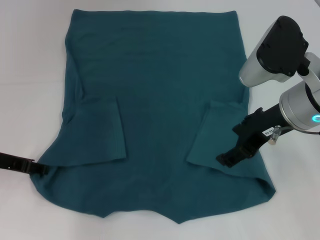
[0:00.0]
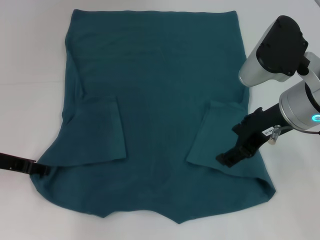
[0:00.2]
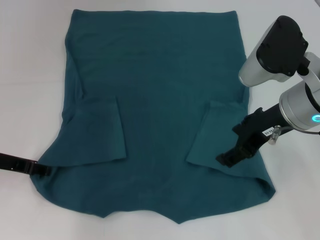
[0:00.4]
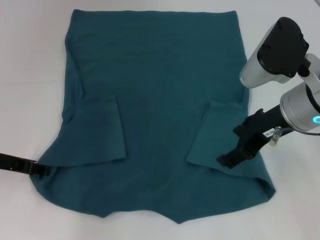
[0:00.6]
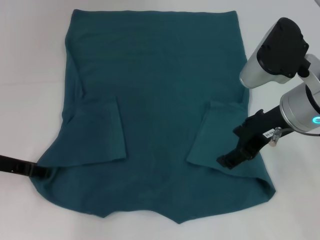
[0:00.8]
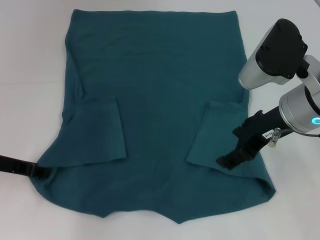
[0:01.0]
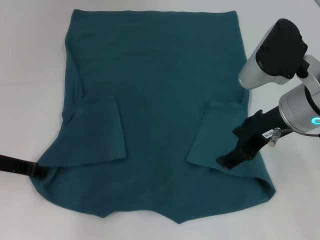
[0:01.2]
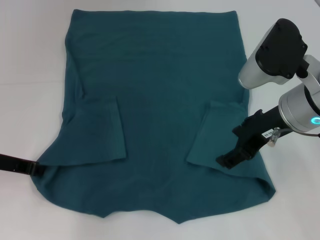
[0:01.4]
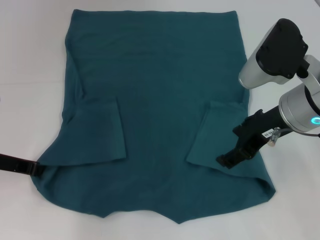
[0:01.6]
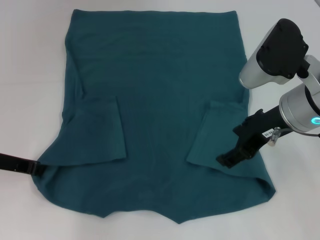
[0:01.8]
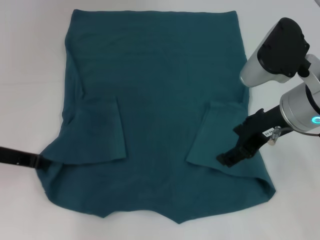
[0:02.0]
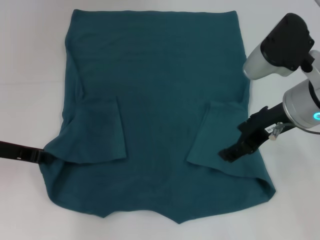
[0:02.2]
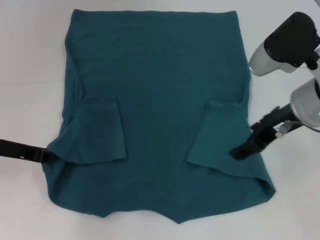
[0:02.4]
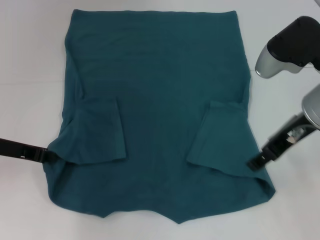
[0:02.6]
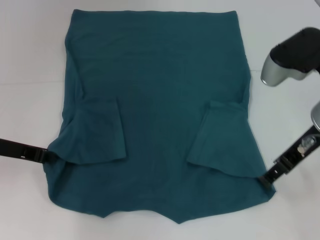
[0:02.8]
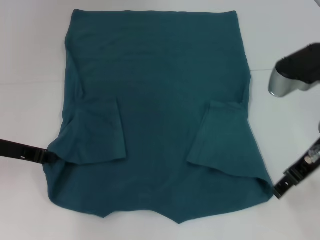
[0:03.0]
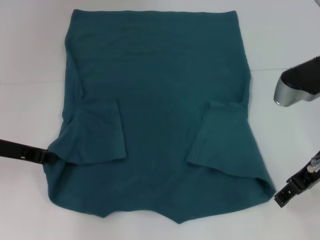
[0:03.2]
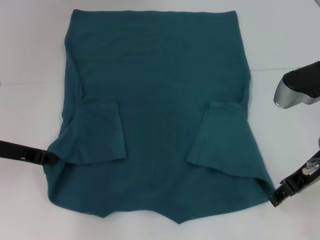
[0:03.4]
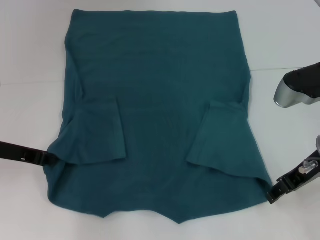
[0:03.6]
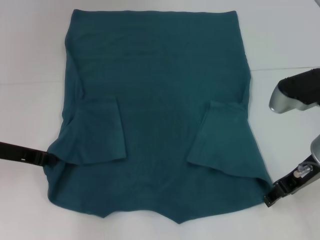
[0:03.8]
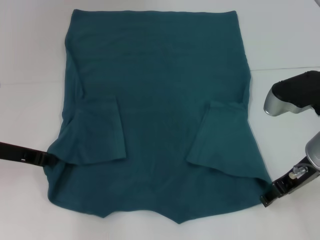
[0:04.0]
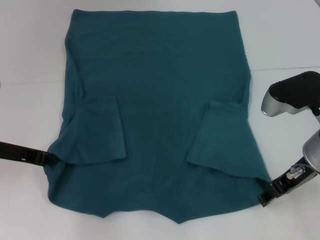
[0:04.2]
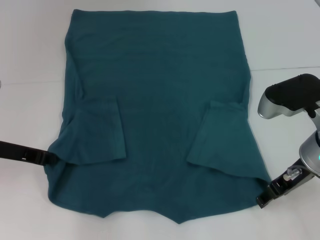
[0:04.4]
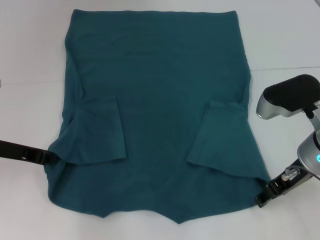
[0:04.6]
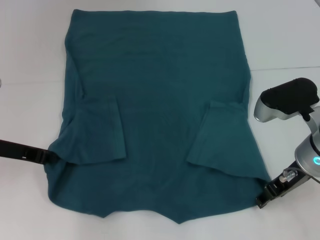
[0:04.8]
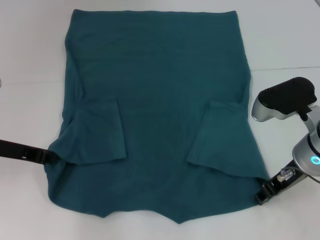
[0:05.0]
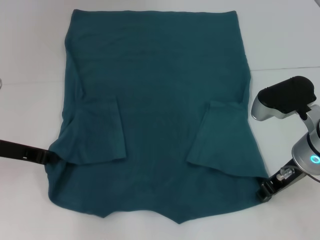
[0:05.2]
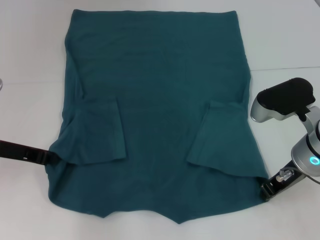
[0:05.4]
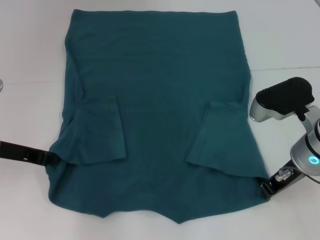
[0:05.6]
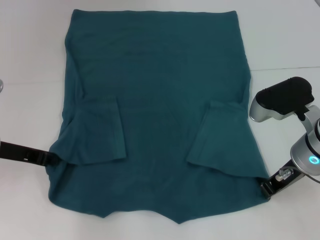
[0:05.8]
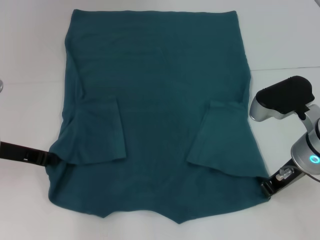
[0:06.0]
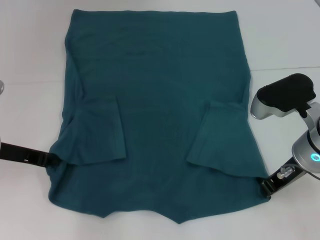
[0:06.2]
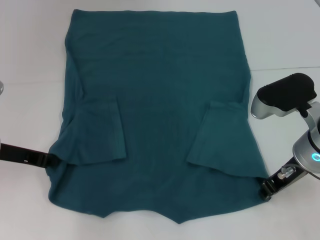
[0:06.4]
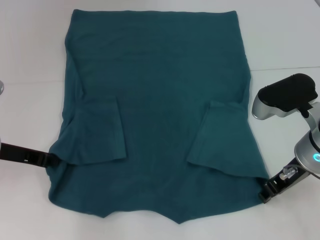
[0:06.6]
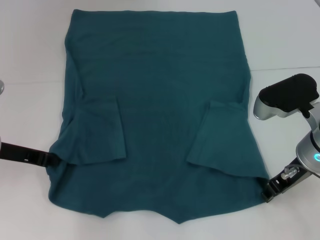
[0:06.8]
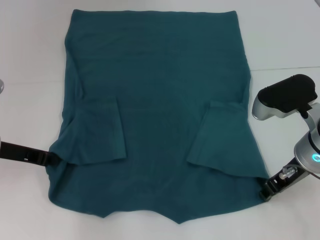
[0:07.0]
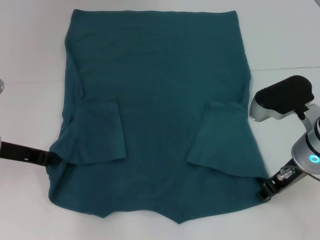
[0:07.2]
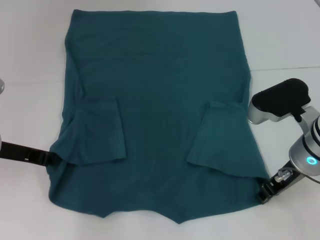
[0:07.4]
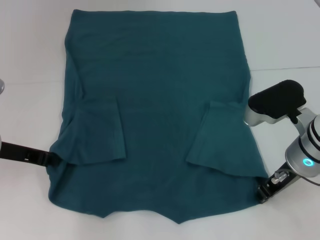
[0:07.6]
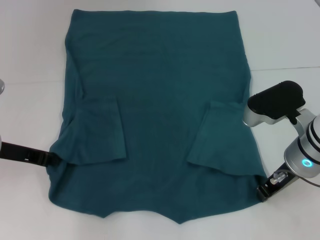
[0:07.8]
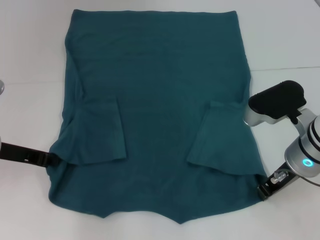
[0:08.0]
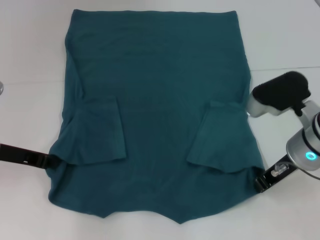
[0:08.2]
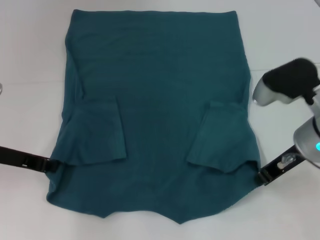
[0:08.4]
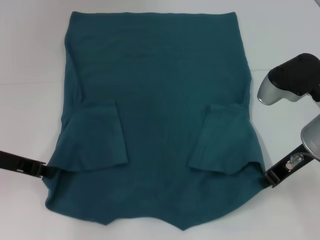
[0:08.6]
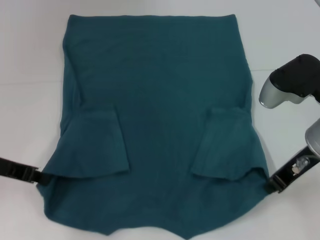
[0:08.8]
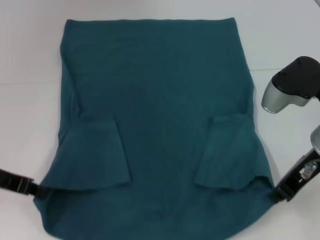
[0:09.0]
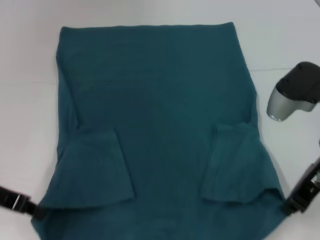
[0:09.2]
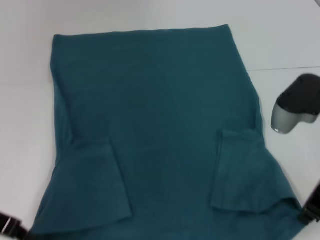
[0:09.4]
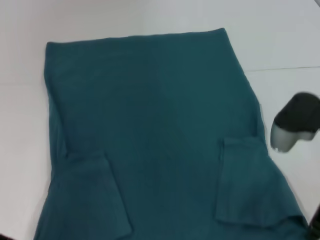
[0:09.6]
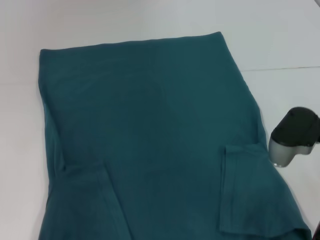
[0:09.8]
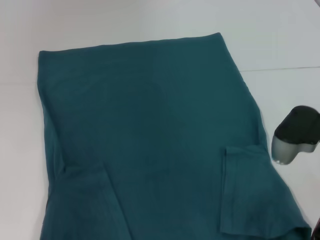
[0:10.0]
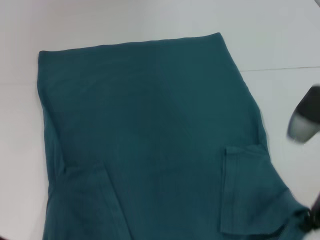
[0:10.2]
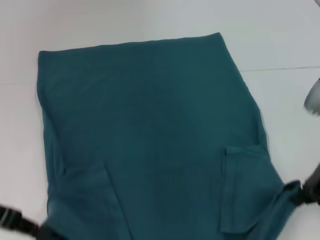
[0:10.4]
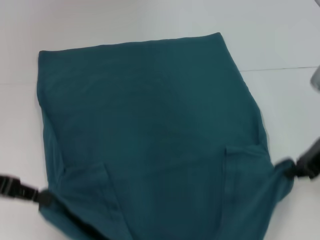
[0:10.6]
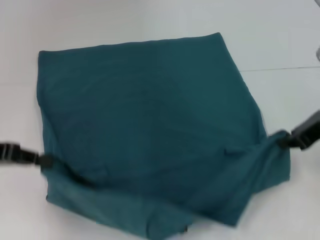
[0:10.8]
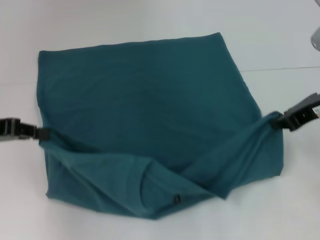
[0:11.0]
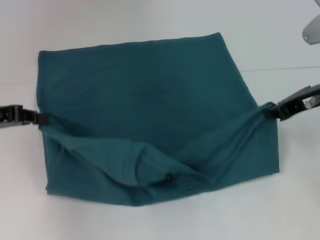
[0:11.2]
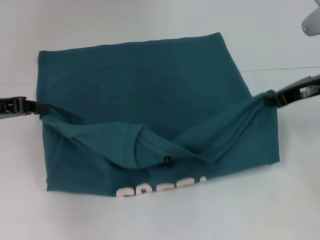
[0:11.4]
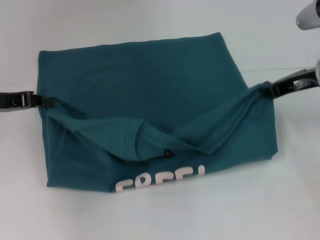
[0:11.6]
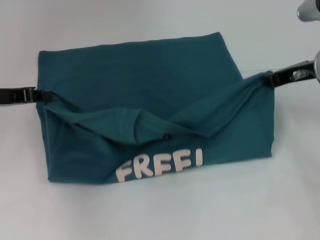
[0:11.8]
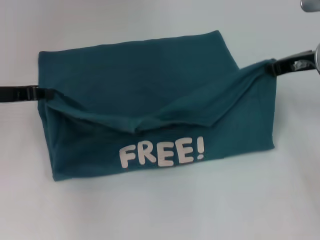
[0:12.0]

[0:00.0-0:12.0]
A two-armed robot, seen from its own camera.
Step, 0:00.0 to 0:02.0: Grab the bottom left corner with your left hand.
Step, 0:02.2 to 0:08.6: Grab the bottom right corner with your right hand.
0:03.0 to 0:04.4: The right gripper shifts some 5 cm downward.
0:04.4 to 0:06.0: The right gripper closes up.
0:06.0 to 0:07.6: The right gripper opens up.
0:07.6 to 0:09.0: The right gripper is displaced upward by approximately 5 cm.
0:10.4 to 0:12.0: The two grippers go some 10 cm forward.

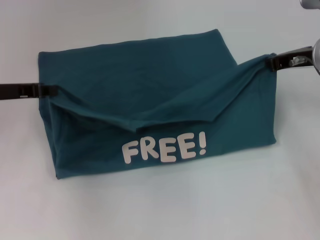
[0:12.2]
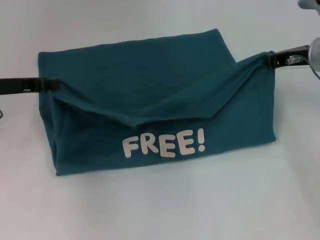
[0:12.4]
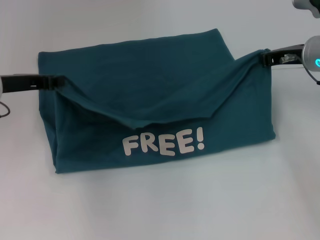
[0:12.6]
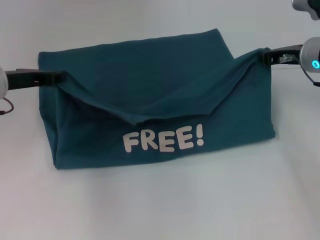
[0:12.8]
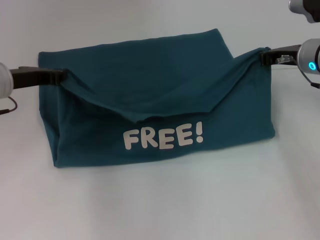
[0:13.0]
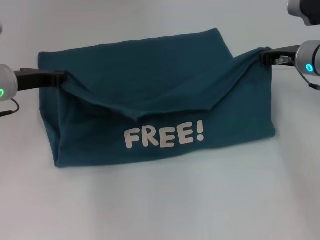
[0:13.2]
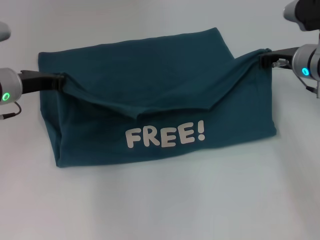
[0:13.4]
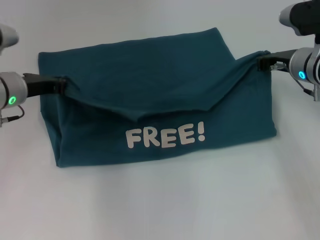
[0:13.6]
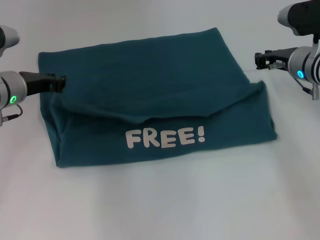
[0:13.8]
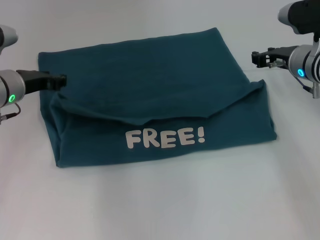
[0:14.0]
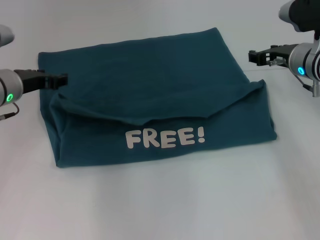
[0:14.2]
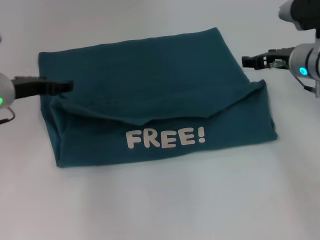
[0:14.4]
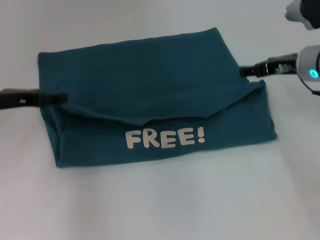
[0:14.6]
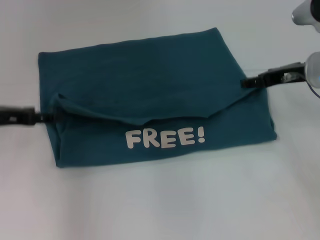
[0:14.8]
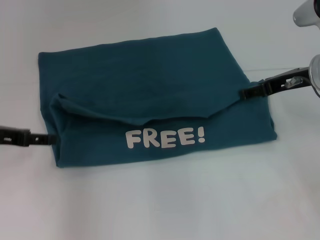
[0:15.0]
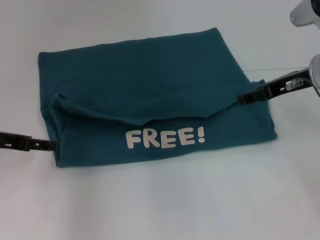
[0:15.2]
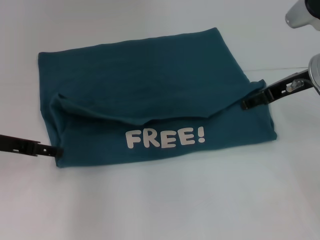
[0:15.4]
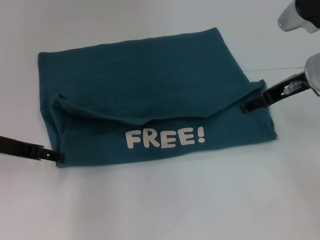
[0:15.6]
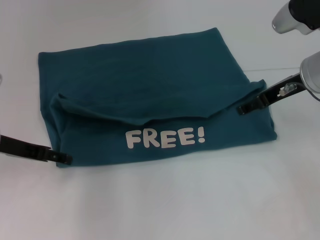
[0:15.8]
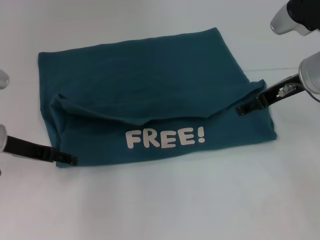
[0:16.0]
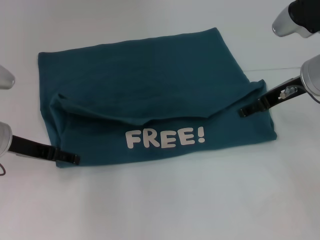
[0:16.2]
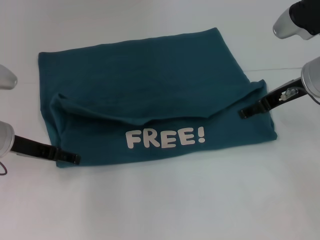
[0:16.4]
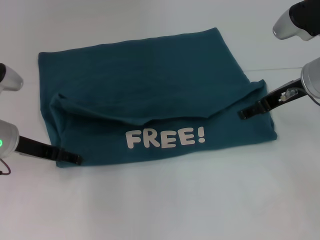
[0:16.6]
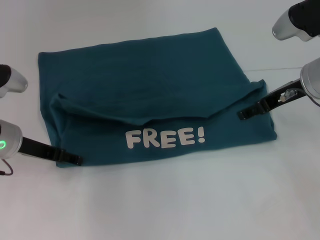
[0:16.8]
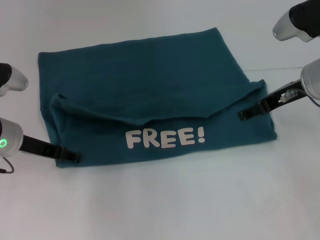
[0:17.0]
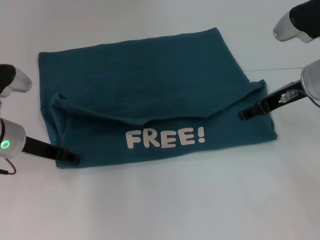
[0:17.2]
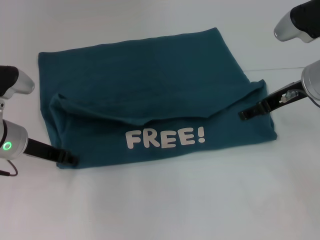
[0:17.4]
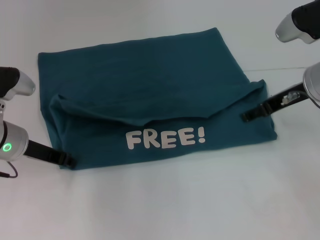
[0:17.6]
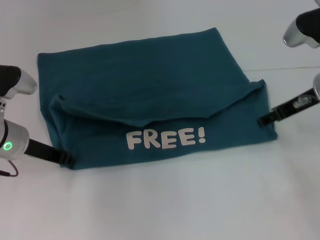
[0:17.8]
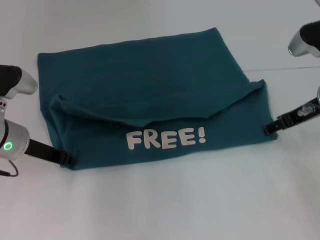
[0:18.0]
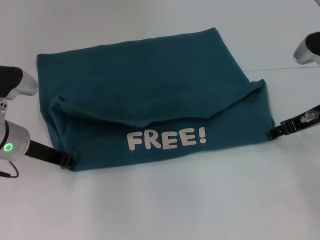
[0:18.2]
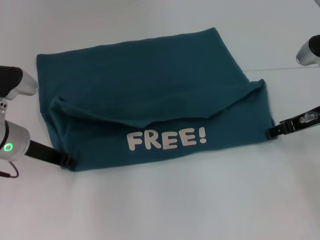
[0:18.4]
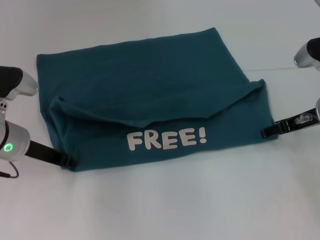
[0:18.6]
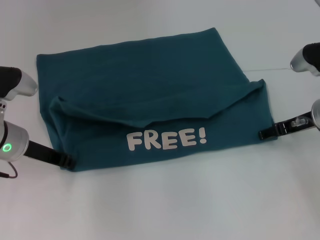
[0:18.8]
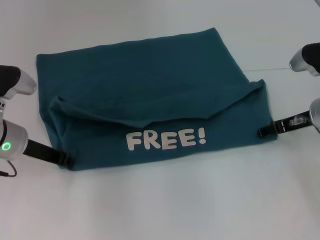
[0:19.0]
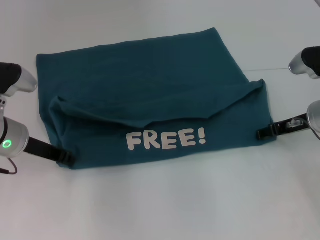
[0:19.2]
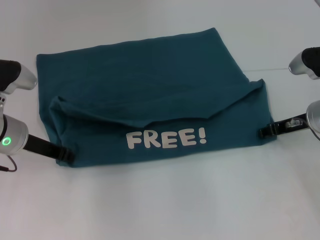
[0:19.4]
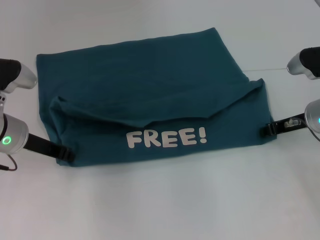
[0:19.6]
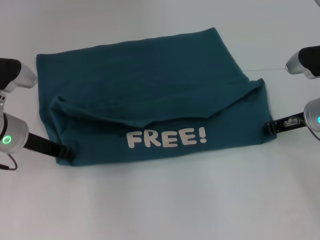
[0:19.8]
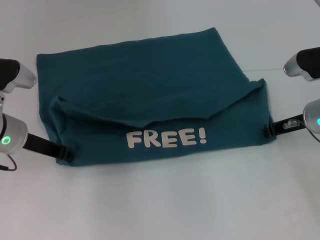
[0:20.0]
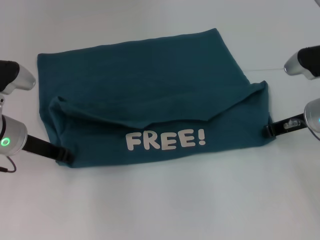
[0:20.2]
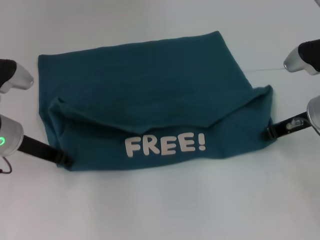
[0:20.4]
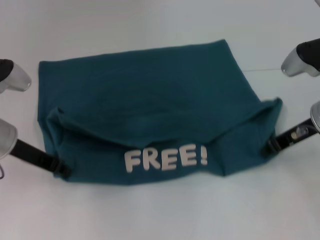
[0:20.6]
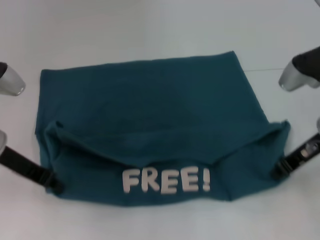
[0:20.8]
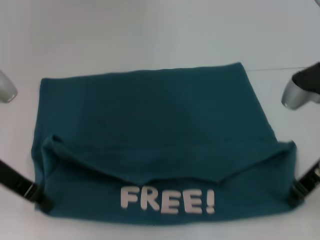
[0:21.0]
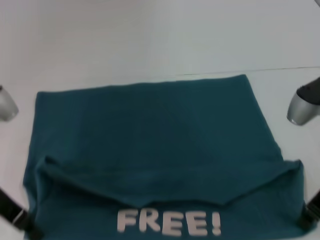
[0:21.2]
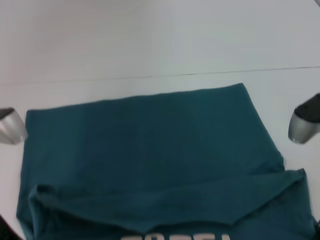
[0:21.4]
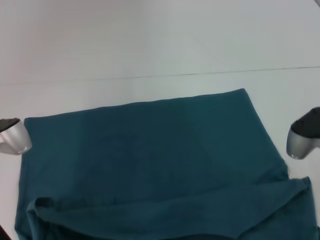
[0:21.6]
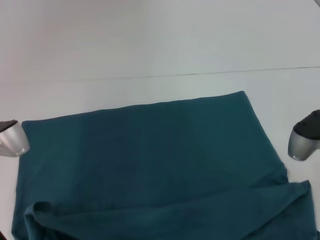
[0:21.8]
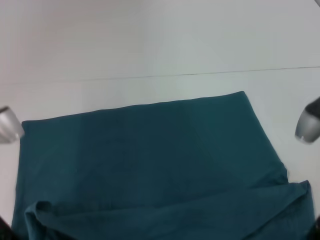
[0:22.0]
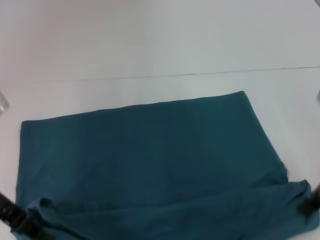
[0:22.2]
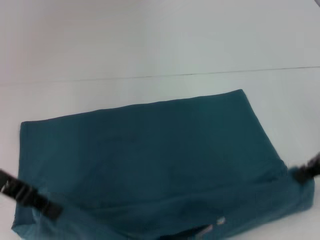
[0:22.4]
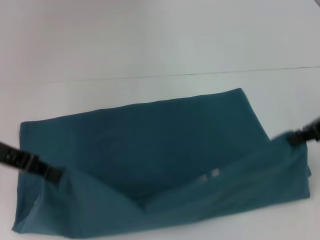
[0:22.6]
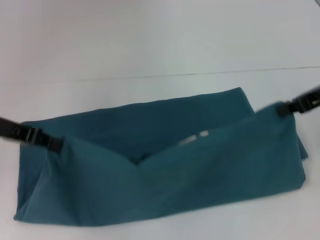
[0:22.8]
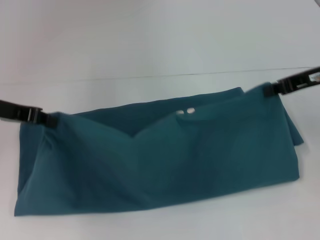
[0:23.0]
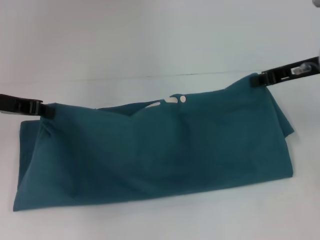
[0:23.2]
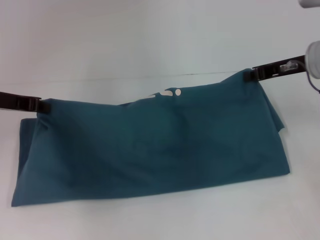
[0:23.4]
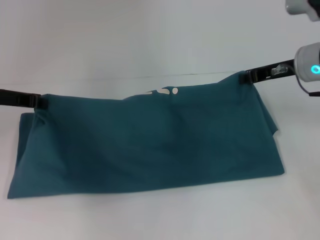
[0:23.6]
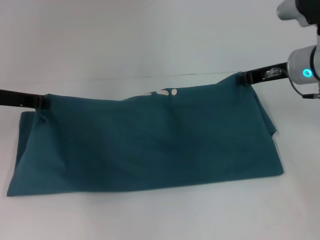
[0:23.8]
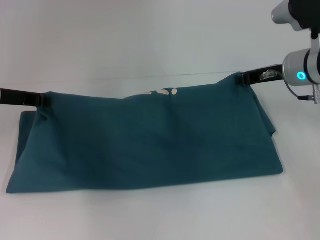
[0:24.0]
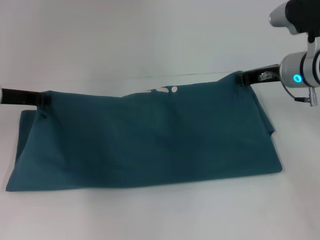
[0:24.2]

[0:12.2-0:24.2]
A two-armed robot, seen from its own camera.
Step, 0:14.2 to 0:21.6: Pull the clothes with your left hand.
Step, 0:14.2 to 0:21.6: Pull the clothes with your right hand.
0:12.2 to 0:13.8: The right gripper is displaced downward by roughly 5 cm. Meanwhile the left gripper heads to the right, covering approximately 5 cm.
0:13.8 to 0:15.2: The right gripper moves upward and backward, approximately 10 cm, and opens. Meanwhile the left gripper heads backward and to the left, covering some 10 cm, and opens its fingers.
0:15.2 to 0:16.6: The left gripper ends up approximately 5 cm from where it was.
0:16.6 to 0:18.2: The right gripper changes place by about 5 cm. Meanwhile the left gripper closes.
0:18.2 to 0:19.8: The right gripper closes.
0:19.8 to 0:21.2: The right gripper heads backward and upward, covering some 10 cm; the left gripper travels backward by roughly 5 cm.
0:21.2 to 0:22.6: The right gripper goes about 5 cm upward.
0:22.6 to 0:24.2: The right gripper travels forward, downward and to the left by about 15 cm, while the left gripper moves forward, about 5 cm.
